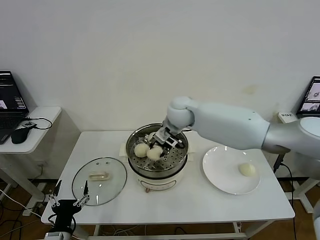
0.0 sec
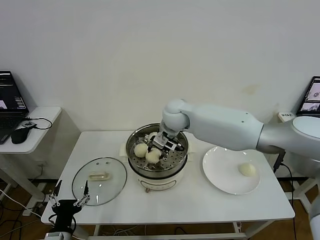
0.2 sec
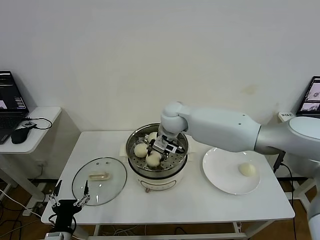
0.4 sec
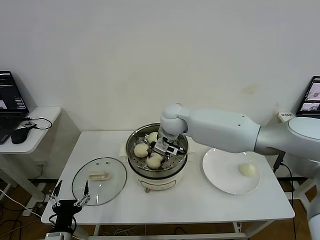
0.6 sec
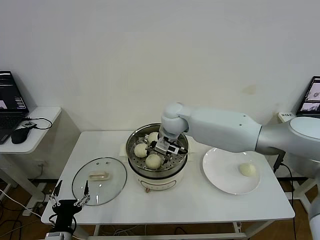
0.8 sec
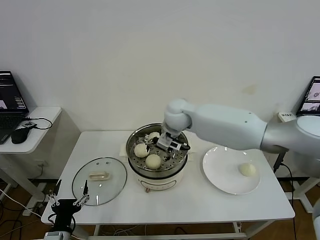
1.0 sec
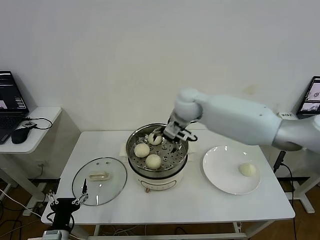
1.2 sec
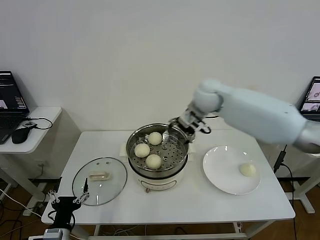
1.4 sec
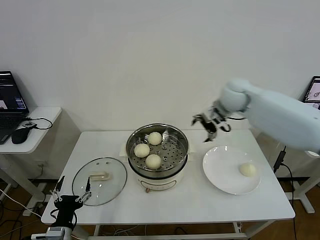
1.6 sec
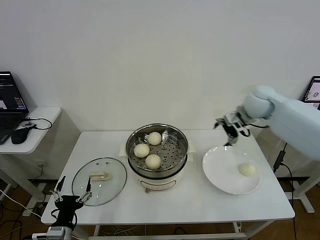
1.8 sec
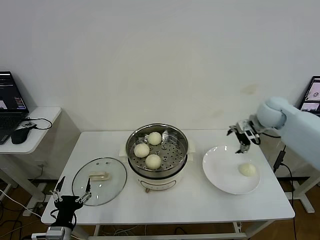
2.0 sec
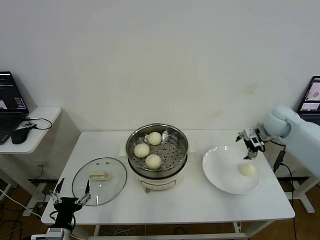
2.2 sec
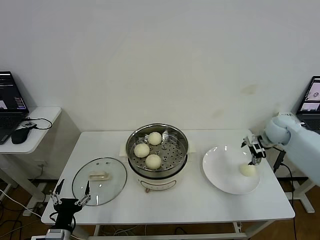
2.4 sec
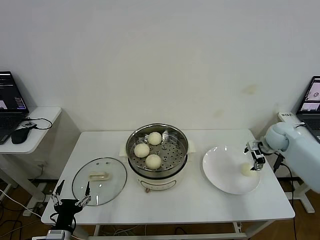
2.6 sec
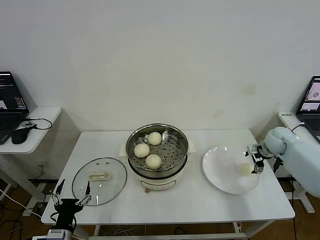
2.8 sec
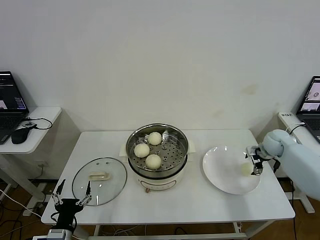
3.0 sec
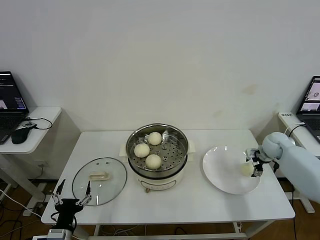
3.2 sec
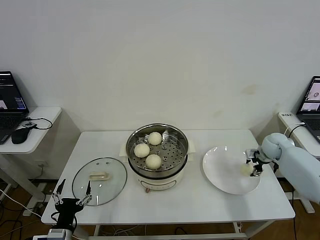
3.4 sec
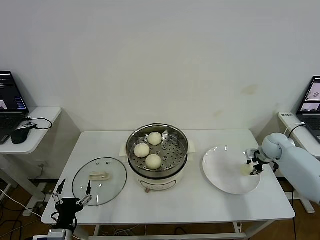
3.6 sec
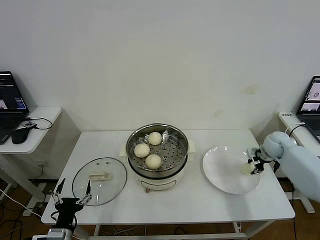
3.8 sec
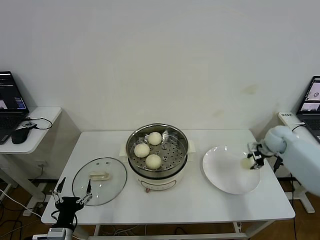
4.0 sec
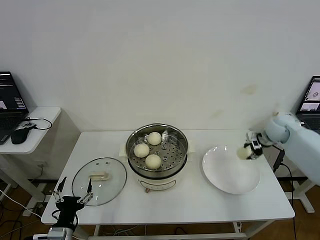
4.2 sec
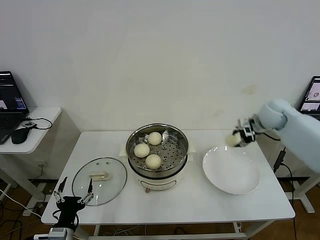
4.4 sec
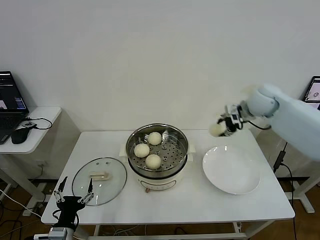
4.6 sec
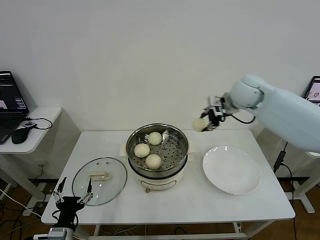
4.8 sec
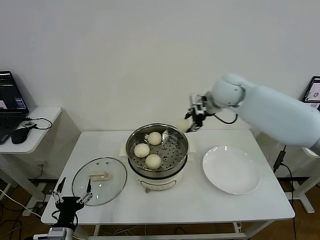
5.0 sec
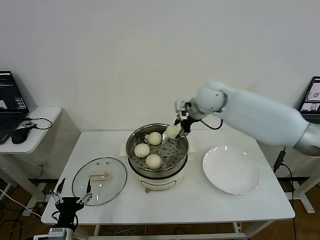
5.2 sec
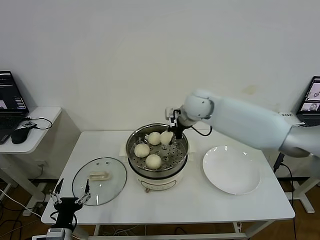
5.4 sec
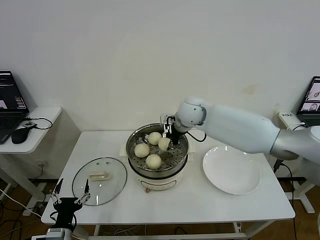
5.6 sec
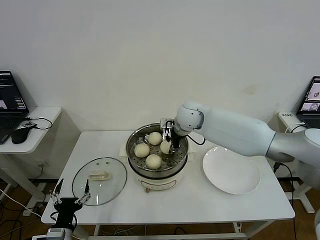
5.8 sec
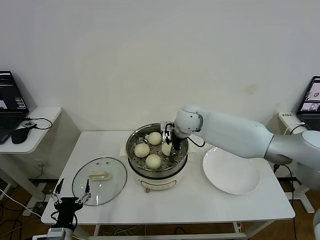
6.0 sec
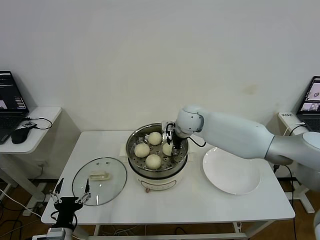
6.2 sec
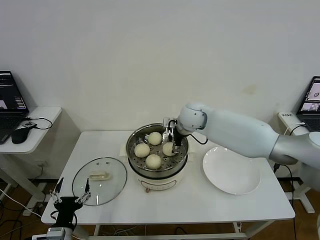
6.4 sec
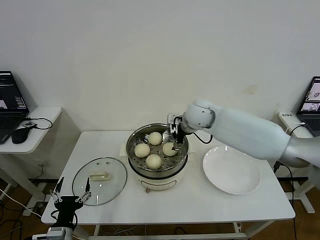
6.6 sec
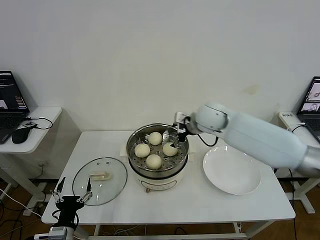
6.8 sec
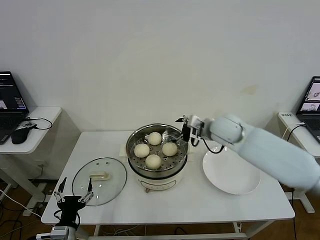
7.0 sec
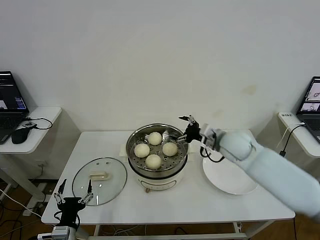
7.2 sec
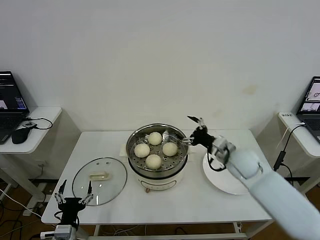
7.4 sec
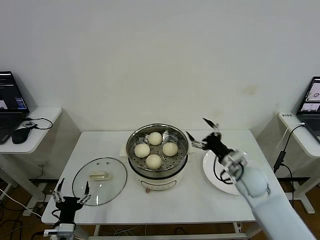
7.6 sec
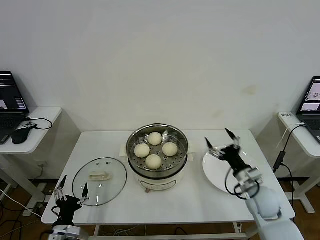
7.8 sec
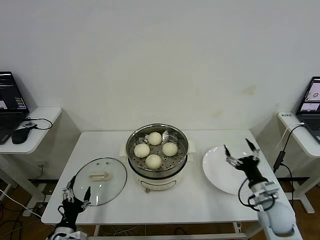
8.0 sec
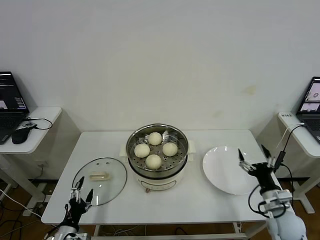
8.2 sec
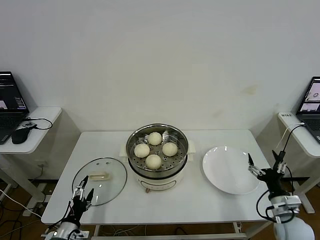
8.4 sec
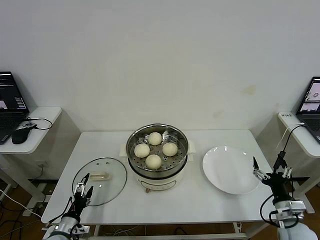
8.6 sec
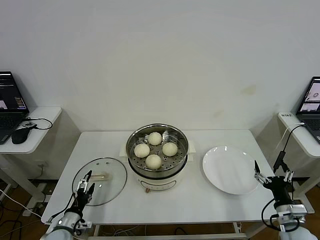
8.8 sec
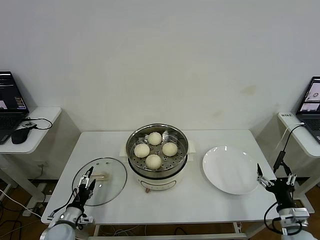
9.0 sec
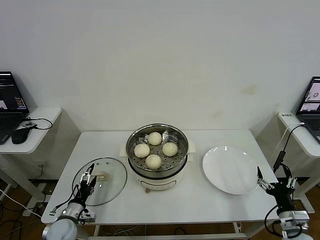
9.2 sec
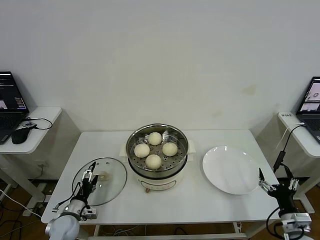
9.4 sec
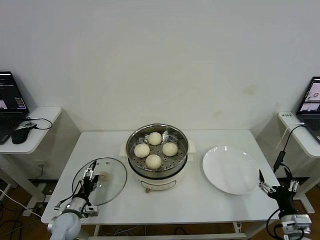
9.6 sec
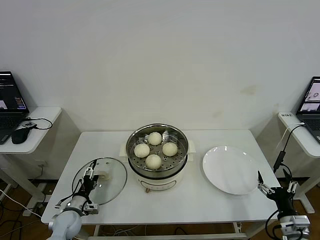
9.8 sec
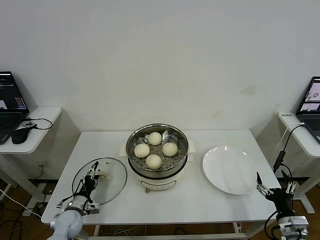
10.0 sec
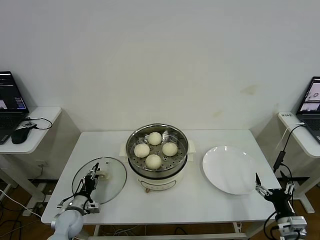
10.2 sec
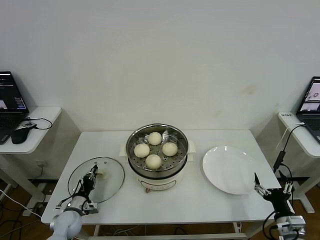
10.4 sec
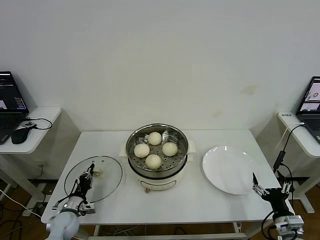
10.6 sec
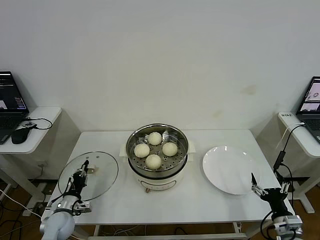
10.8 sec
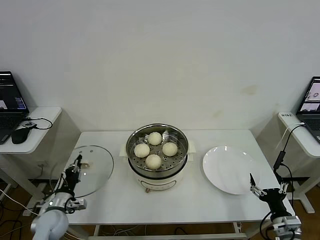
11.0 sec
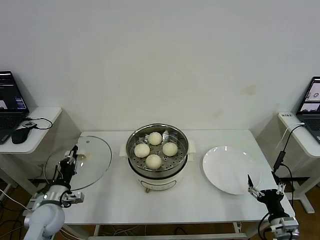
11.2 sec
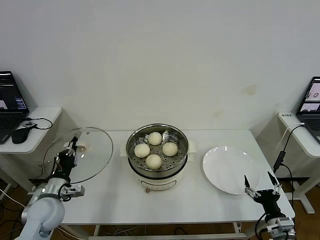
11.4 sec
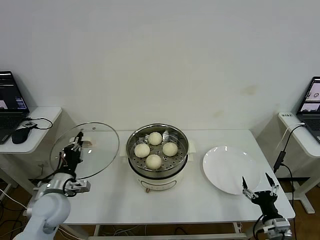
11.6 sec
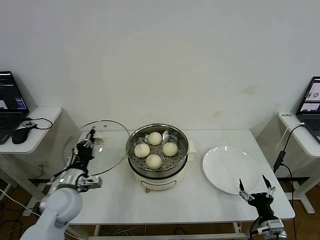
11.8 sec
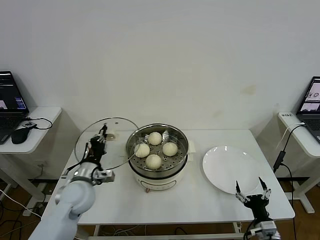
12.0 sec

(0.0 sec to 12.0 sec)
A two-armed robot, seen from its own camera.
Step, 1.0 sec - 3.6 sec: Grasp the baozi in the plate with right gripper.
Step, 4.0 sec - 6.4 sec: Place the baozi on the steamer with right gripper.
Step, 6.6 sec - 10.6 sec: Grasp the pot lid with left gripper.
0.0 sec - 1.6 sec: The right gripper goes about 20 cm to the right, and opens.
1.6 sec - 3.0 sec: The right gripper is displaced downward and to the right by some 25 cm.
3.0 sec - 4.4 sec: The right gripper is displaced upward and to the left by roughly 15 cm, and closes its fingers.
4.4 sec - 6.0 sec: The right gripper travels to the left by roughly 25 cm.
6.0 sec - 7.6 sec: The right gripper goes some 30 cm to the right, backward and downward, and opens.
7.6 sec - 9.0 sec: The left gripper travels forward and downward by roughly 10 cm; the right gripper shifts approximately 25 cm backward, to the right and downward.
9.0 sec - 10.4 sec: The left gripper shifts roughly 5 cm forward, and closes.
10.4 sec - 12.0 sec: The left gripper heads upward and to the right, covering roughly 20 cm, while the right gripper is displaced to the left by roughly 5 cm.

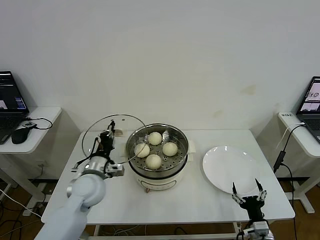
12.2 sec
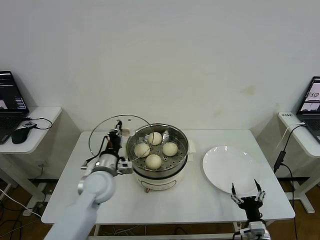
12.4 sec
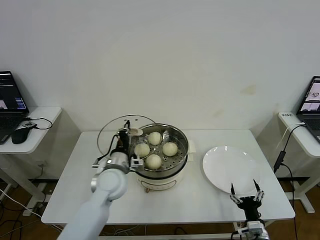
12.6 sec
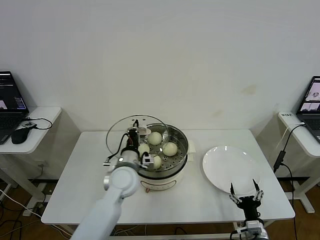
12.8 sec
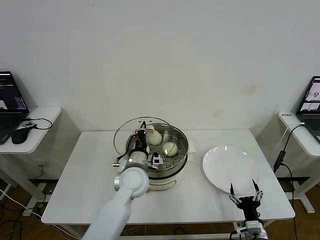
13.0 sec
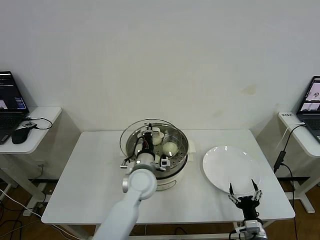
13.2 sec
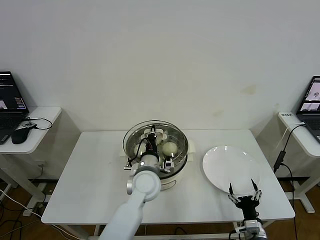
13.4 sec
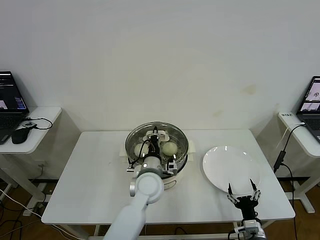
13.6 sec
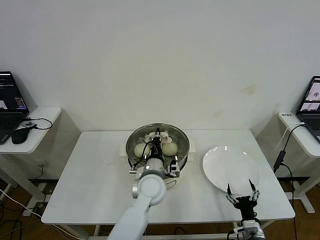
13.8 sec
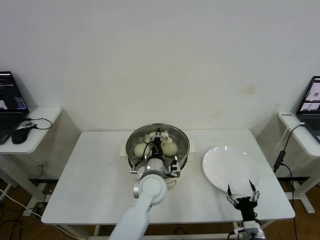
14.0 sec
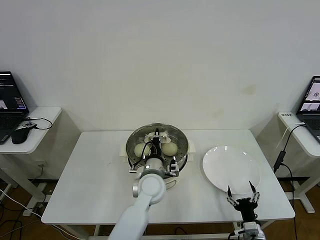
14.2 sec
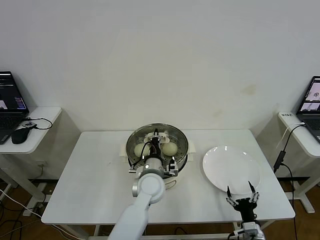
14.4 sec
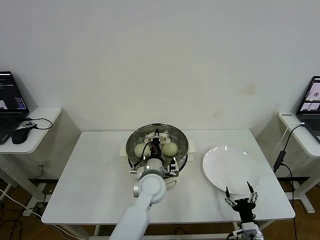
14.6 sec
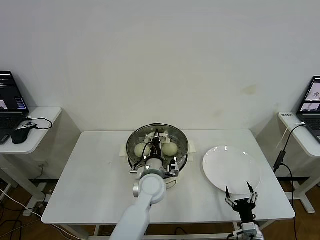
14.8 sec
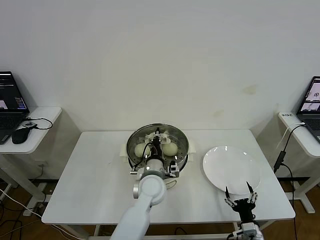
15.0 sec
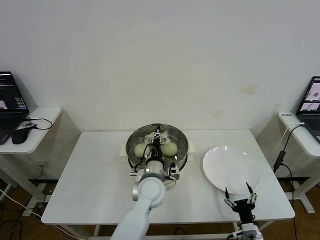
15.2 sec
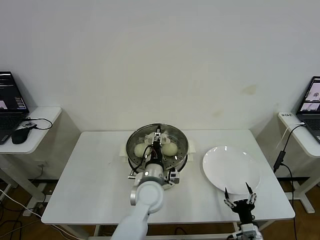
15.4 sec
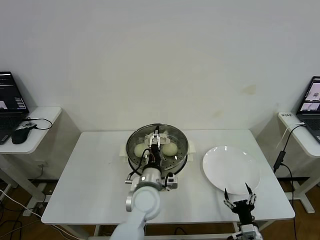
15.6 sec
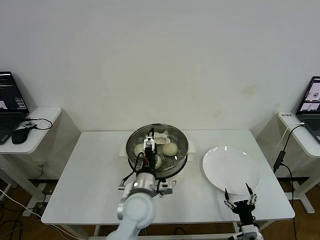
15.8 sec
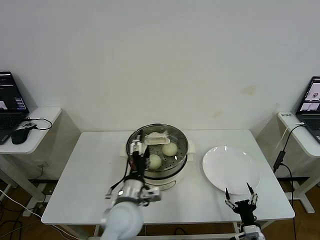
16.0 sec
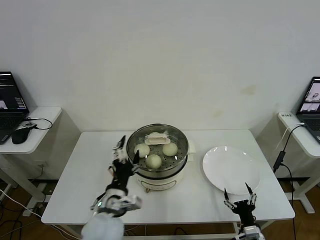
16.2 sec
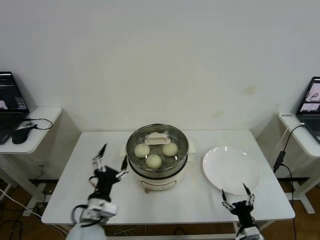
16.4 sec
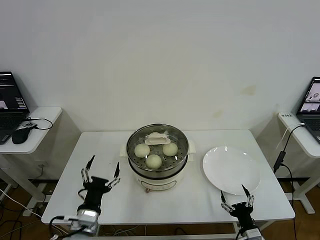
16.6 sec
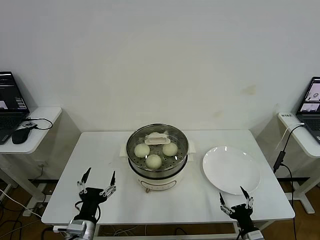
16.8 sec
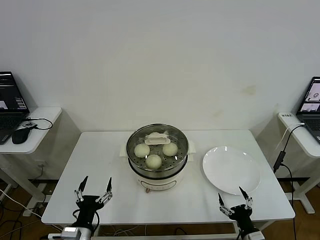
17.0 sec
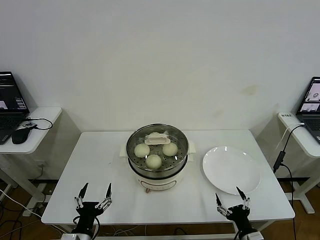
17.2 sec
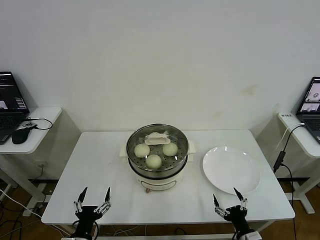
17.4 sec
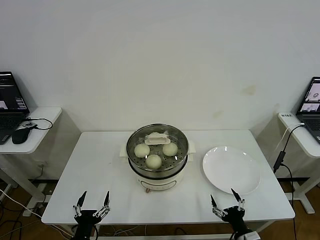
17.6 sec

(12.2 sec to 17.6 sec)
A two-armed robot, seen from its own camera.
Step, 12.2 sec - 15.4 sec: Place the pot lid on the steamer with left gripper.
12.2 sec - 13.6 sec: The left gripper is displaced to the right by about 20 cm.
13.6 sec - 15.0 sec: The grippers stay close to where they were, moving slightly.
15.0 sec - 16.2 sec: The left gripper shifts approximately 15 cm backward and to the left, and opens up.
16.2 sec - 17.6 sec: The left gripper moves to the left, downward and backward, some 20 cm.
